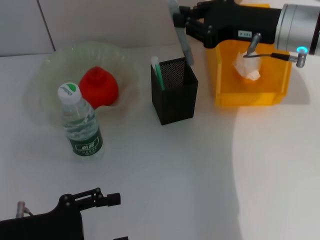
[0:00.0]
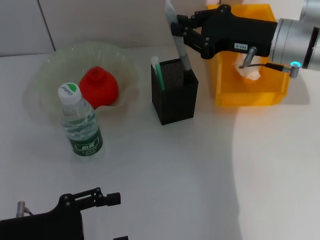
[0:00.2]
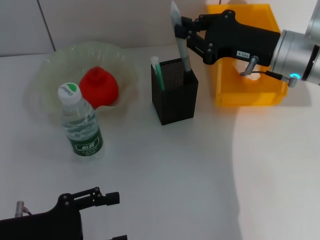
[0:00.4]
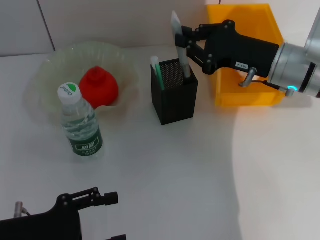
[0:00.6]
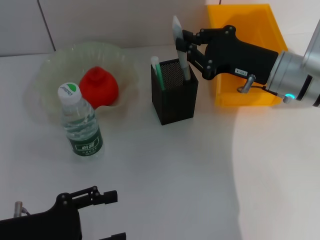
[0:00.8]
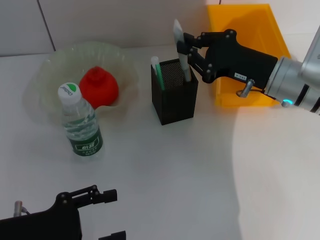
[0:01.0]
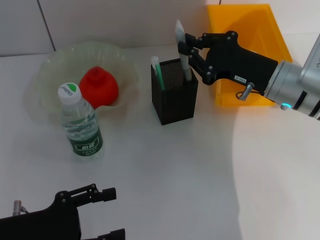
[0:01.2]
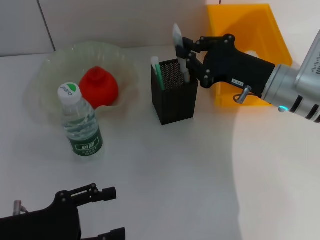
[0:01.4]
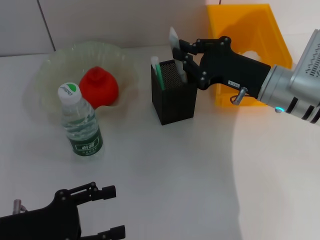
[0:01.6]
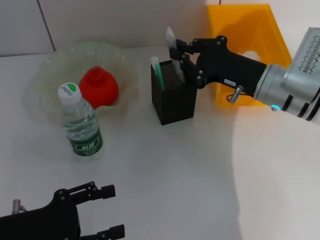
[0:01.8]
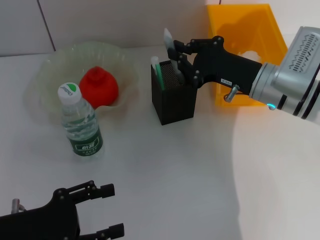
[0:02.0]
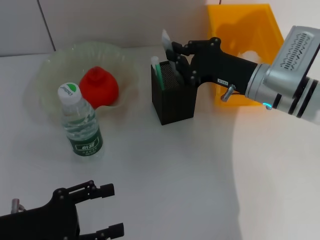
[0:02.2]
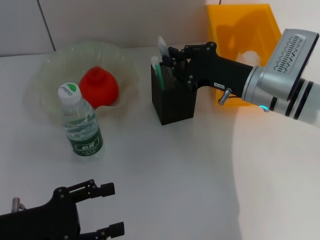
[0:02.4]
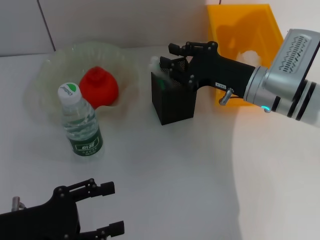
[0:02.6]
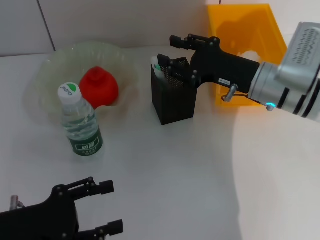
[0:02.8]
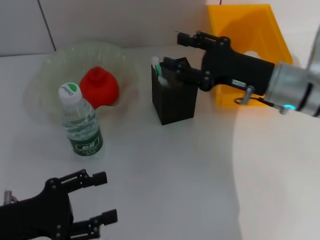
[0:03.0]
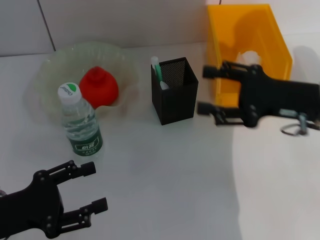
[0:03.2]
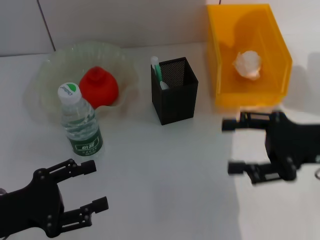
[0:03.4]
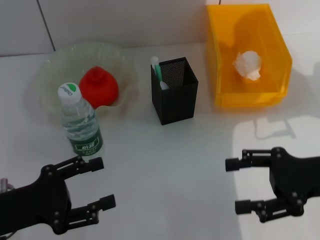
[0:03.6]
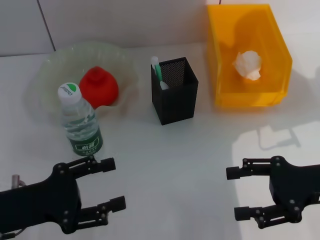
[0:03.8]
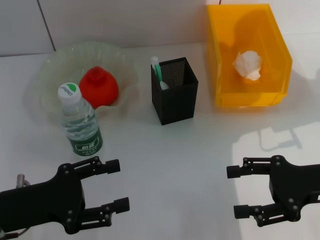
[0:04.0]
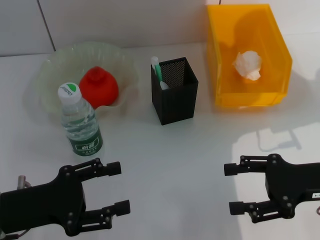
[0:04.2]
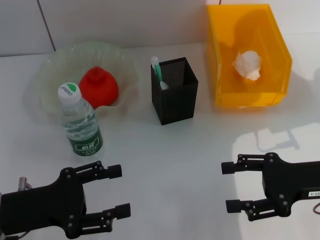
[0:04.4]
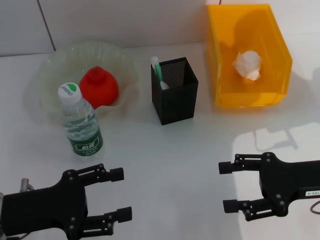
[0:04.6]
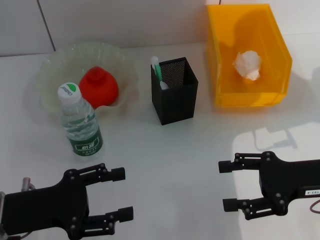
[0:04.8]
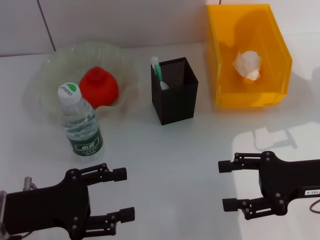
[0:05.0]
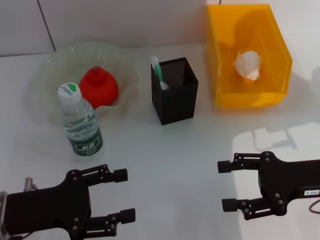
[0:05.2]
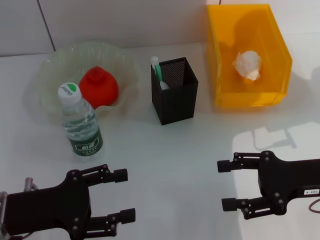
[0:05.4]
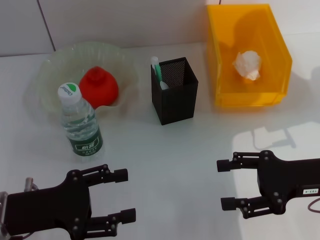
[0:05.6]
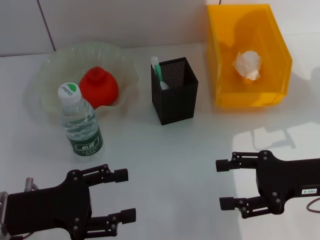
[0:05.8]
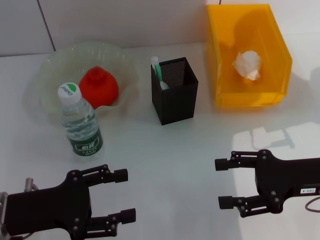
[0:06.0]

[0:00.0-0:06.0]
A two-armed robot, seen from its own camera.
Step, 0:00.0 to 0:03.0: Place the gray glue into the pen holder with the right hand.
0:00.0 to 0:01.6: The right gripper moves downward, about 10 cm.
0:01.6 to 0:03.0: The right gripper opens its fingers.
0:03.0 to 0:04.4: The right gripper moves backward and to the right, some 15 cm, and opens up.
0:04.4 to 0:06.0: Both grippers stay put.

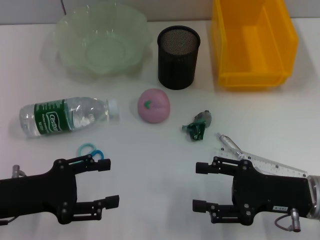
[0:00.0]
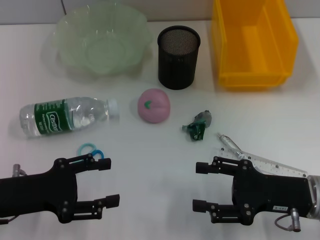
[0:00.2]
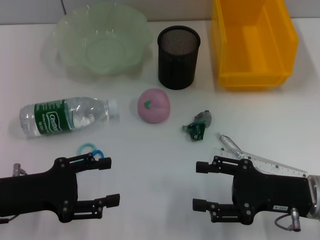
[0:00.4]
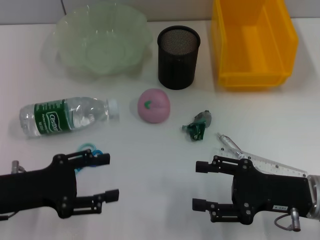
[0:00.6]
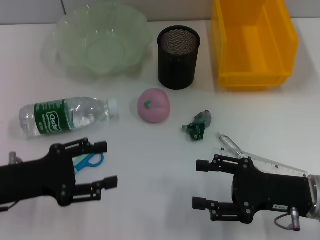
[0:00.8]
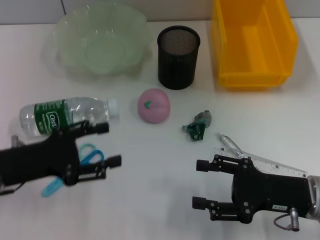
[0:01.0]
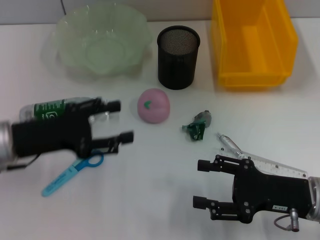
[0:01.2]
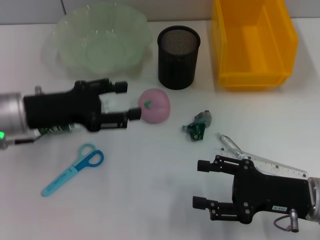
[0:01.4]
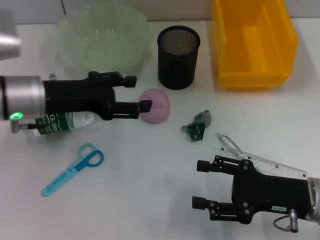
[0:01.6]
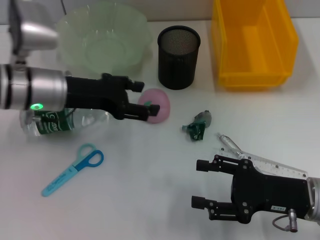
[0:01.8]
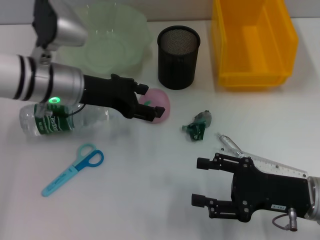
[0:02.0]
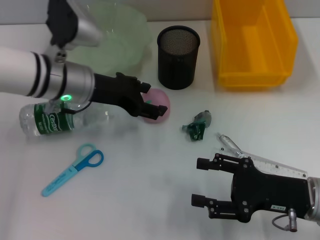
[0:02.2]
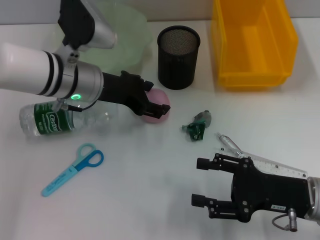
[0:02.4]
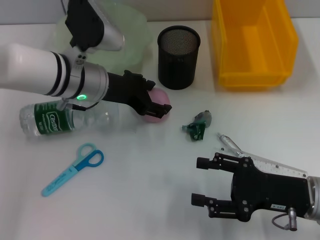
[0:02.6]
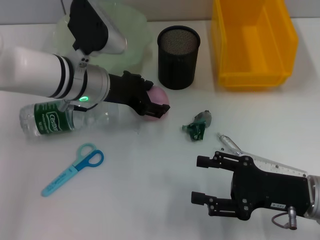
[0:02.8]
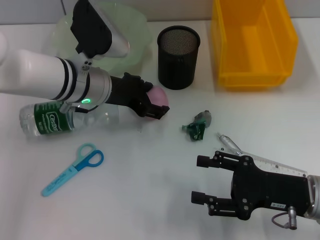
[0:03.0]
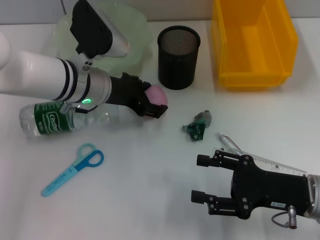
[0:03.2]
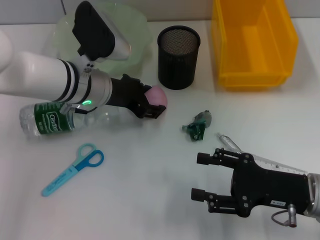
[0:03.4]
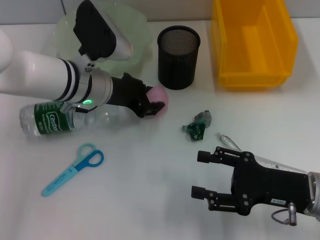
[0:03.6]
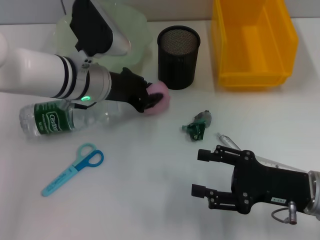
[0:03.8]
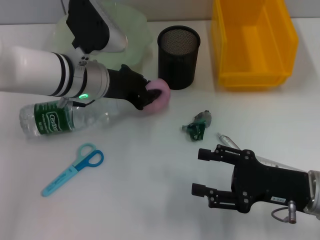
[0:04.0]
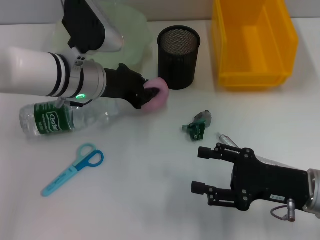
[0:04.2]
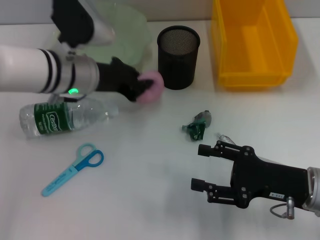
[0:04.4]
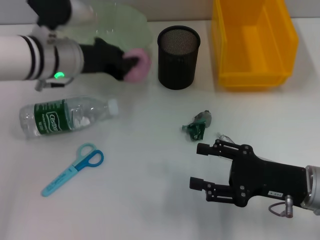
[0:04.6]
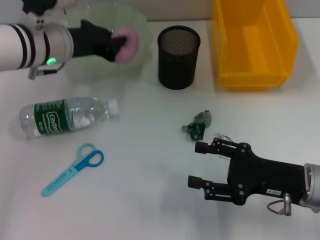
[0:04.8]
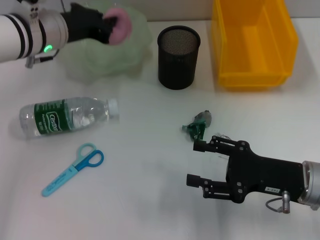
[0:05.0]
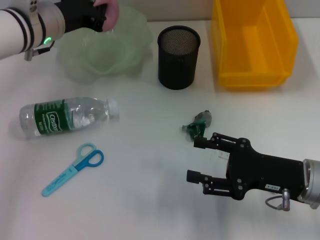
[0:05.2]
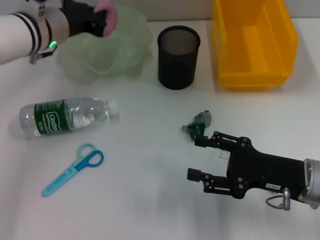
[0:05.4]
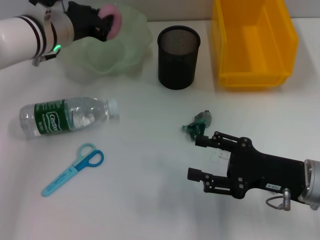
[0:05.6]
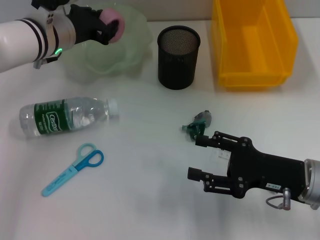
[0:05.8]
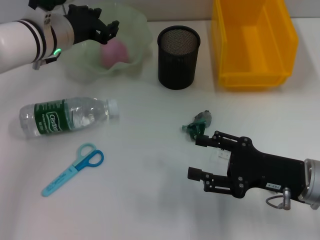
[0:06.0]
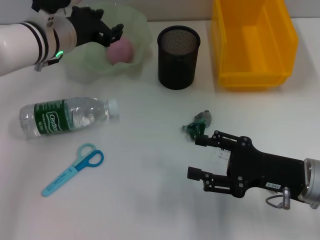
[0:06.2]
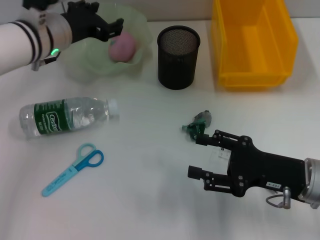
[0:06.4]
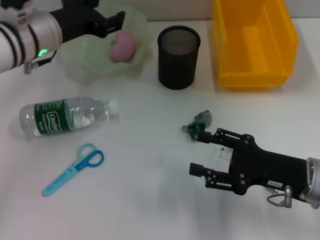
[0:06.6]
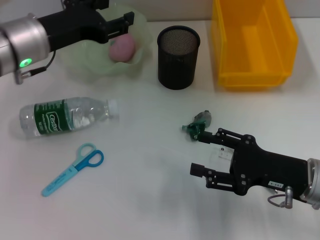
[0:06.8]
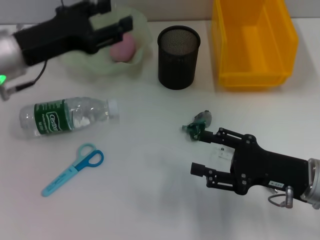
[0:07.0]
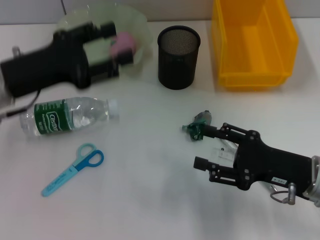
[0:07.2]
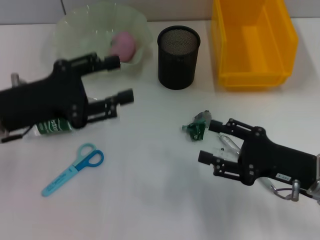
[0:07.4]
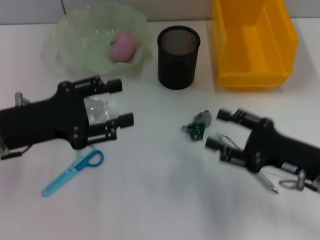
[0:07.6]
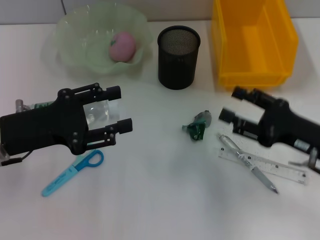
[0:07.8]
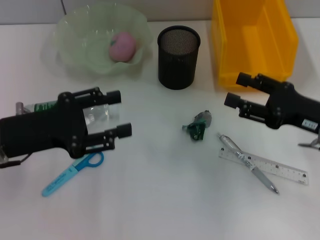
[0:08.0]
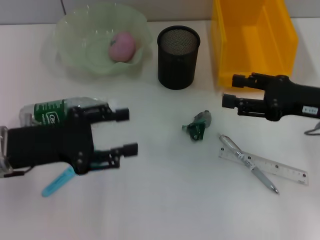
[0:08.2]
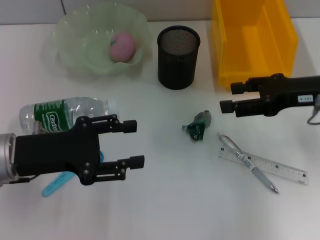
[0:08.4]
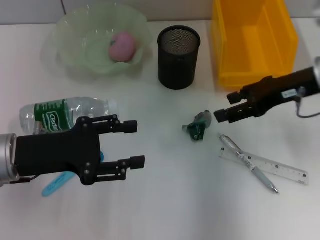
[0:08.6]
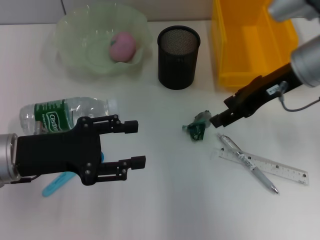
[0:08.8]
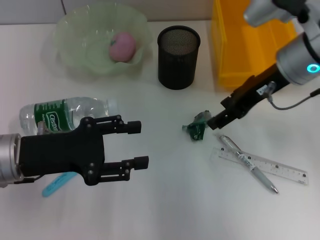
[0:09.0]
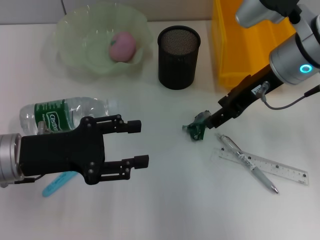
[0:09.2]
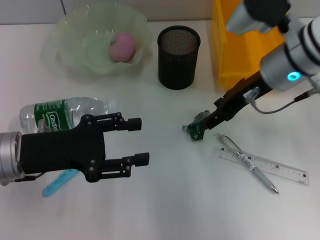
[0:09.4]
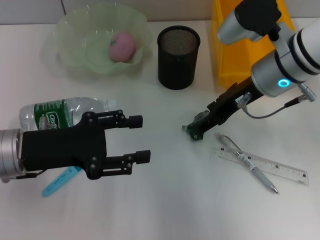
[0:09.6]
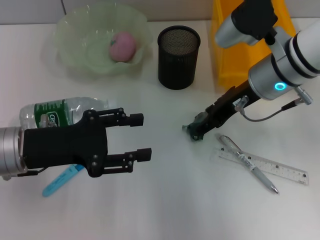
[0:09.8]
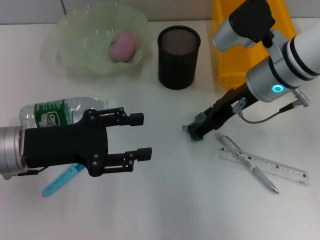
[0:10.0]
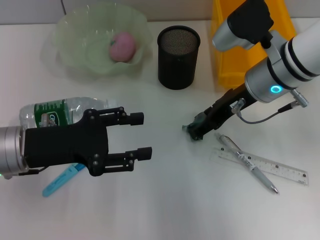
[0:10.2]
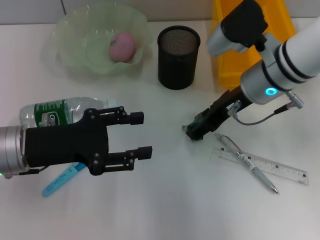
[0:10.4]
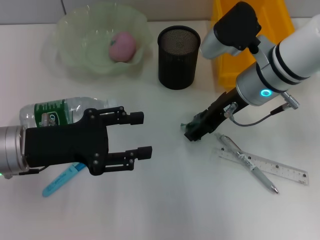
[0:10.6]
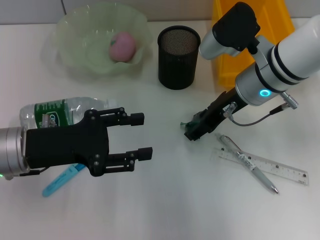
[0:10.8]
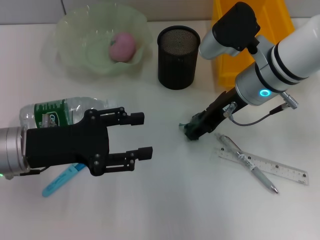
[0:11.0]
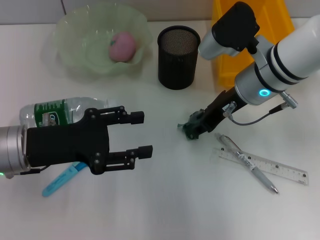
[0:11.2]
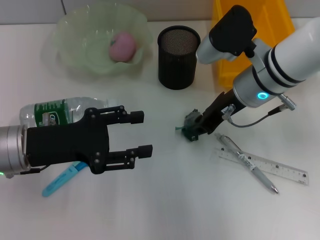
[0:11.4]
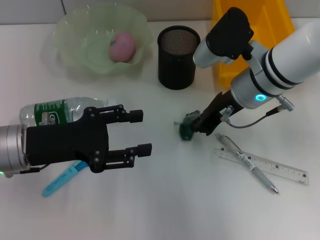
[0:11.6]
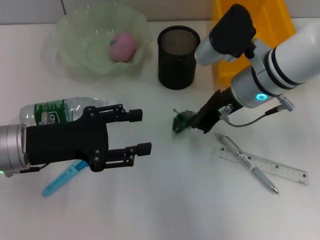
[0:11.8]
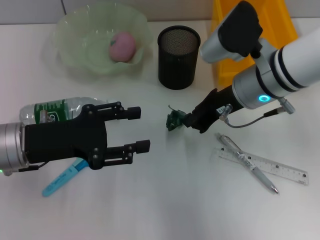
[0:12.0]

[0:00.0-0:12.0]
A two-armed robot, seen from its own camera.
Step, 0:00.0 to 0:04.0: Grab the peach with the left hand.
Step, 0:04.2 to 0:06.2: Place the peach into the fruit bowl with the left hand.
Step, 0:06.4 to 0:11.4: Grab the plastic with the right hand.
0:00.0 to 0:01.6: The left gripper goes roughly 15 cm forward, upward and to the right.
0:01.6 to 0:03.0: The left gripper travels to the right and forward by approximately 10 cm.
0:03.0 to 0:04.4: The left gripper closes its fingers.
0:04.4 to 0:06.0: The left gripper changes place by some 5 cm.
0:06.0 to 0:07.6: The left gripper travels backward and to the left by about 15 cm, and opens its fingers.
0:07.6 to 0:09.0: The right gripper goes approximately 20 cm upward, forward and to the left.
0:09.0 to 0:10.4: The right gripper ends up approximately 5 cm from where it was.
0:10.4 to 0:12.0: The right gripper closes.

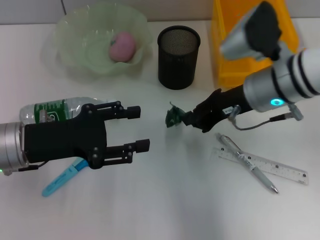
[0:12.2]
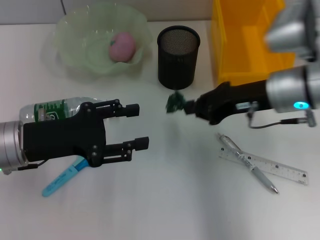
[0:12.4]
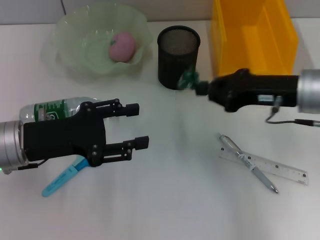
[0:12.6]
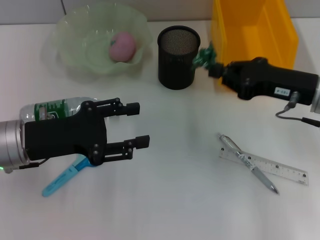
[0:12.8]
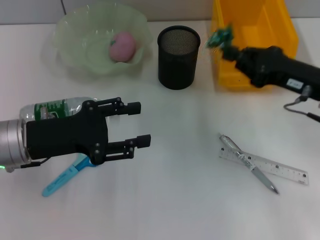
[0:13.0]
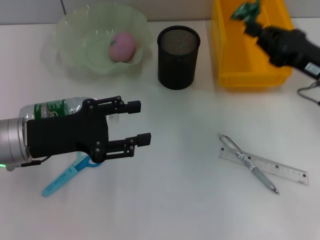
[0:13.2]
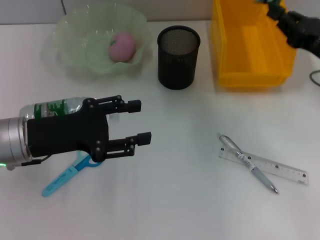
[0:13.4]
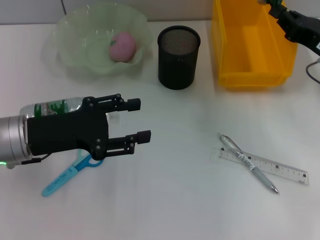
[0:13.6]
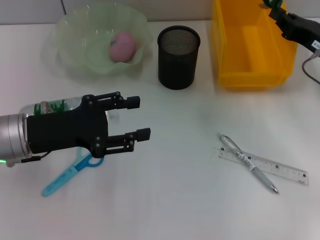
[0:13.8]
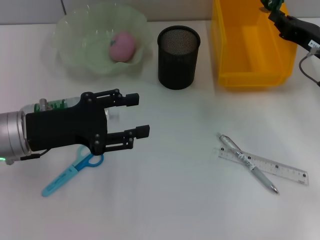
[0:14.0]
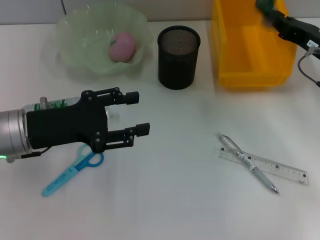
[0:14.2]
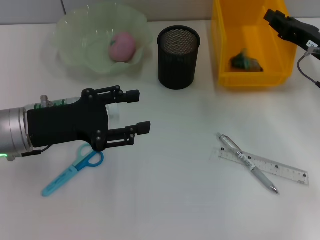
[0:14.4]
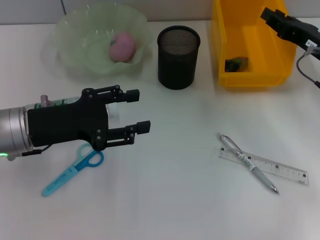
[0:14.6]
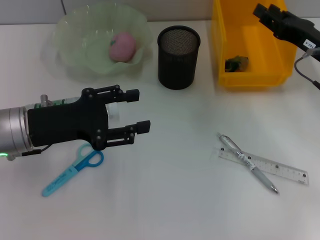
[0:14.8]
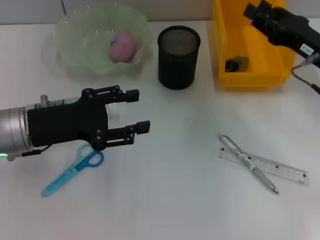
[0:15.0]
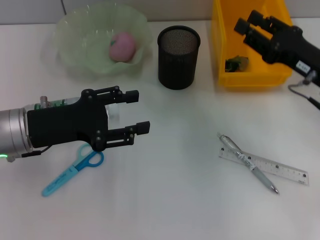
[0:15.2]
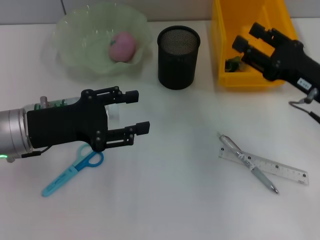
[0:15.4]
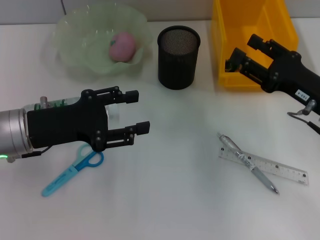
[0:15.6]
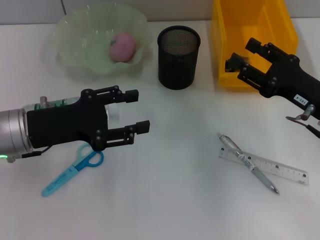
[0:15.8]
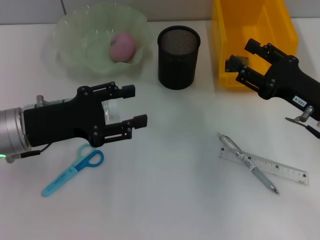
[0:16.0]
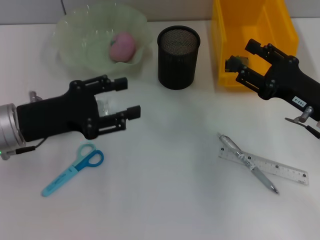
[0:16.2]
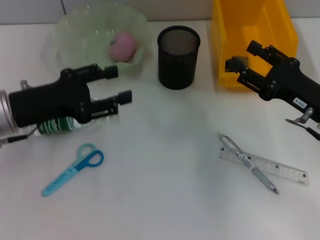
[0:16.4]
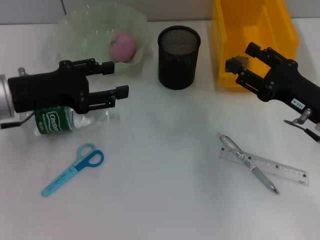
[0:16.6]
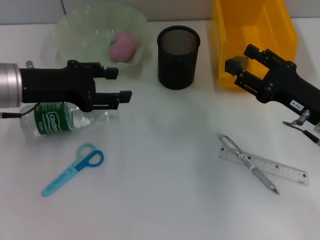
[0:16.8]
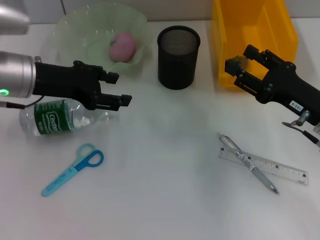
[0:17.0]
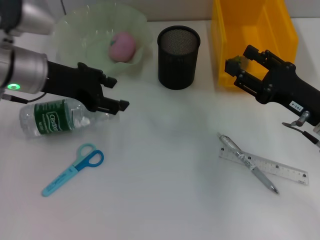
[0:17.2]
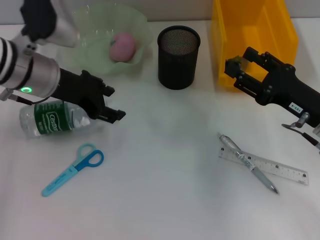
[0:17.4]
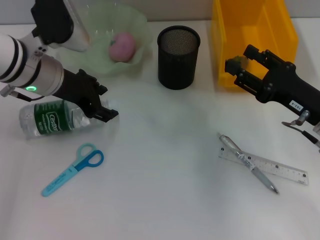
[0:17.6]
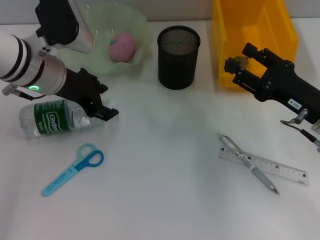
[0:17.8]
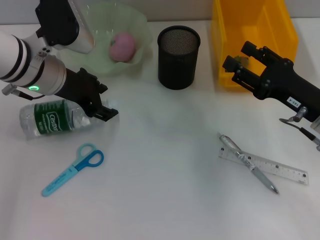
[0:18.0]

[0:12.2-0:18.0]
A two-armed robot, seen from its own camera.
Step, 0:12.2 to 0:14.6: Place the plastic into the trash can with the right hand.
0:12.2 to 0:13.6: The right gripper is displaced to the right by roughly 15 cm.
0:13.6 to 0:15.0: The right gripper opens.
0:15.0 to 0:16.6: The right gripper shifts about 5 cm backward.
0:16.6 to 0:18.0: The left gripper heads forward and to the right, covering some 10 cm.
